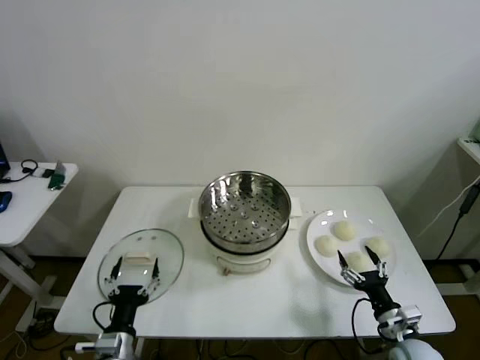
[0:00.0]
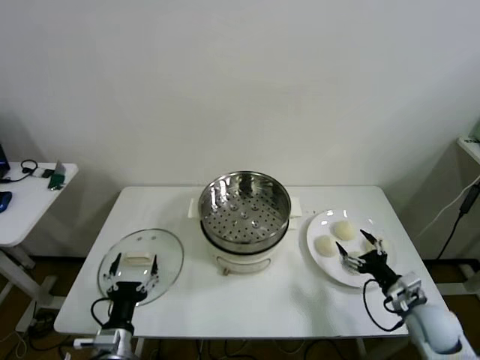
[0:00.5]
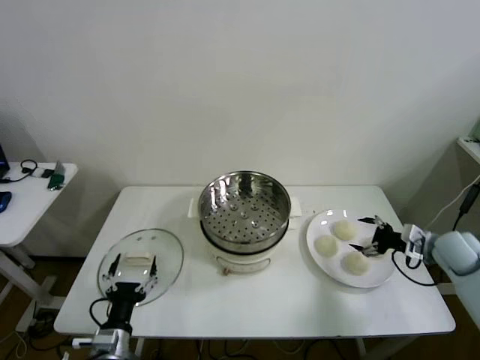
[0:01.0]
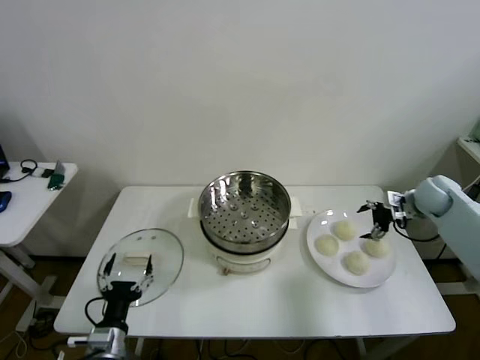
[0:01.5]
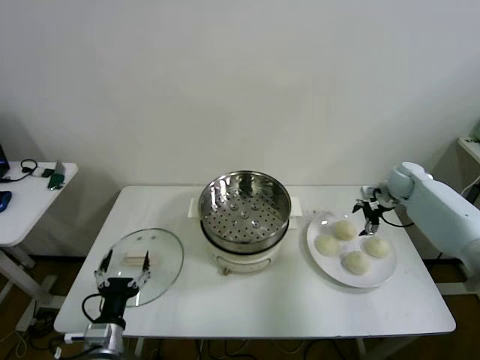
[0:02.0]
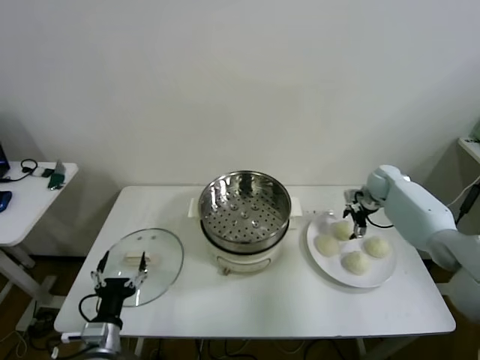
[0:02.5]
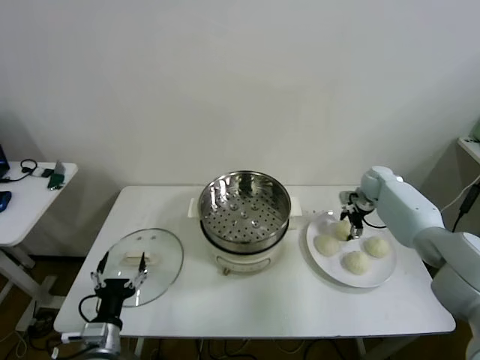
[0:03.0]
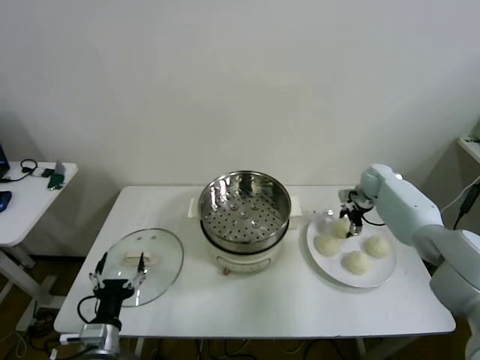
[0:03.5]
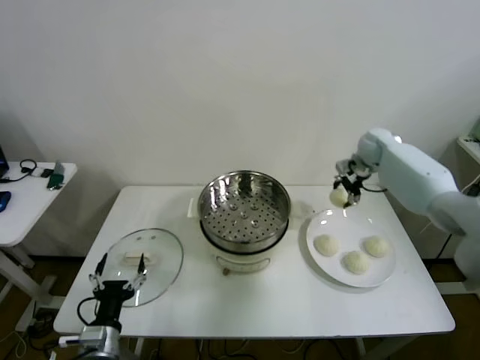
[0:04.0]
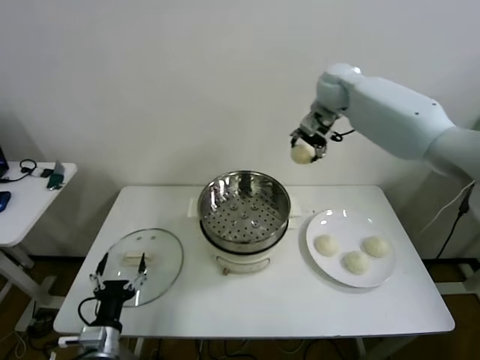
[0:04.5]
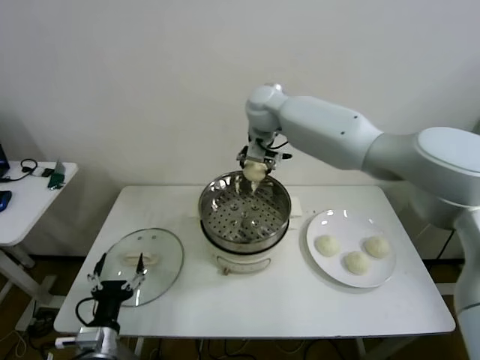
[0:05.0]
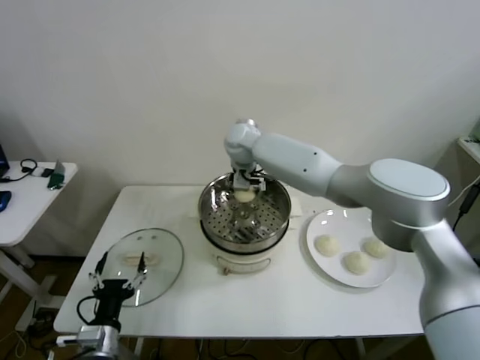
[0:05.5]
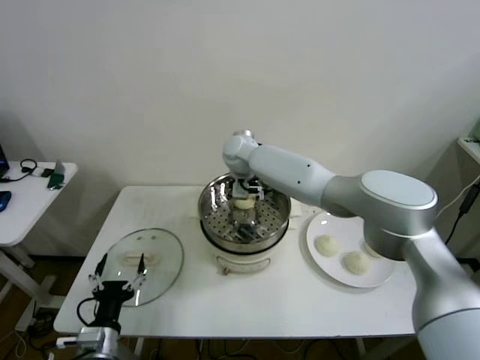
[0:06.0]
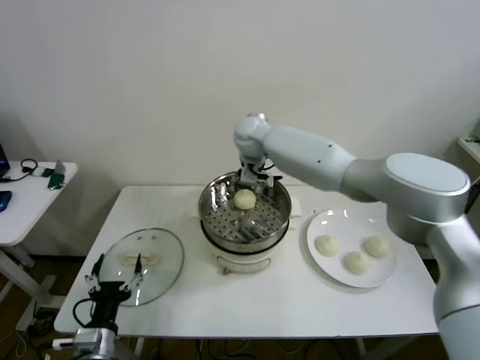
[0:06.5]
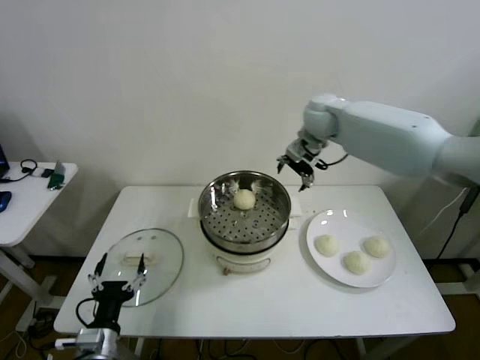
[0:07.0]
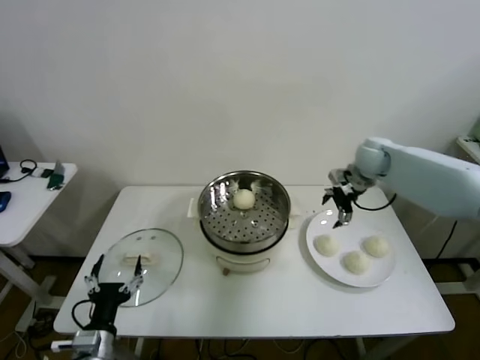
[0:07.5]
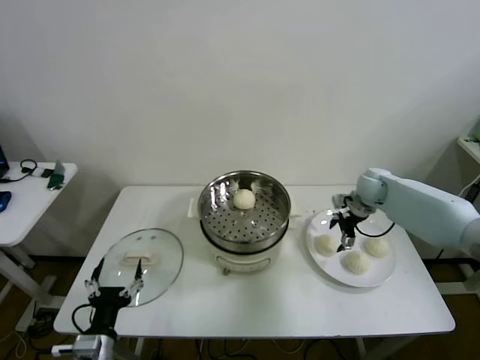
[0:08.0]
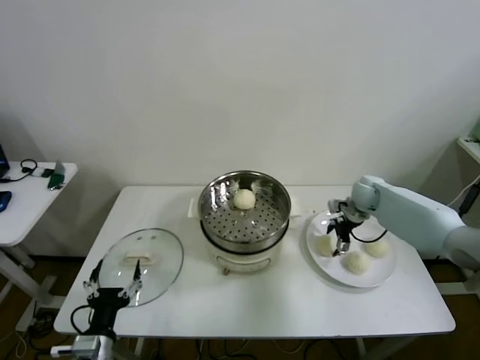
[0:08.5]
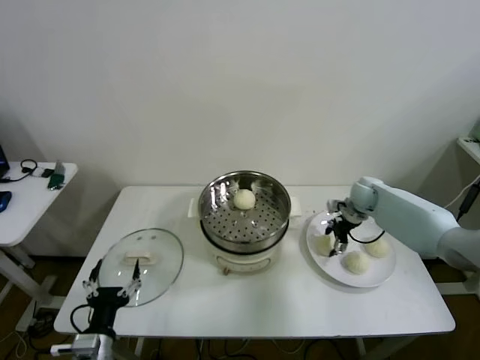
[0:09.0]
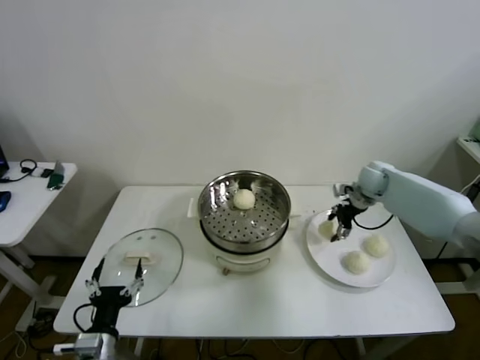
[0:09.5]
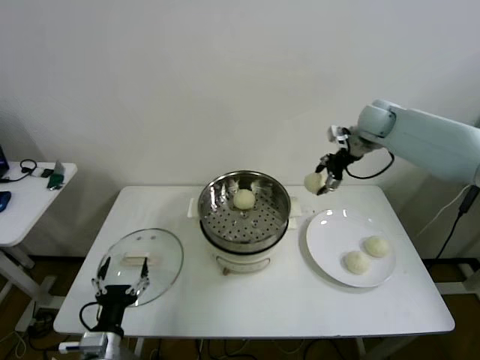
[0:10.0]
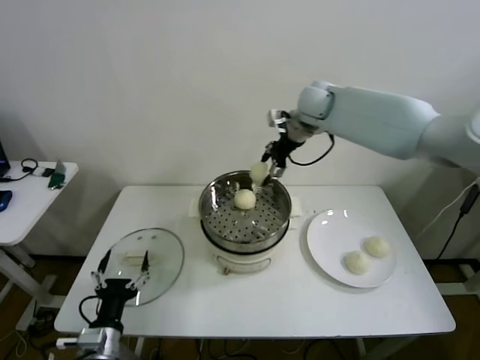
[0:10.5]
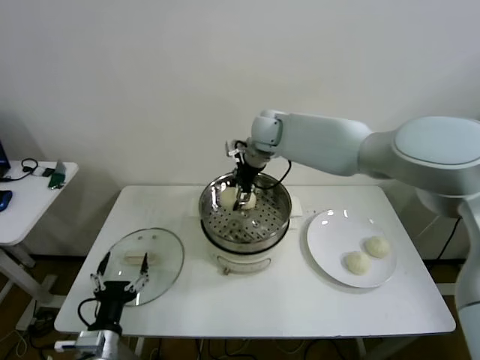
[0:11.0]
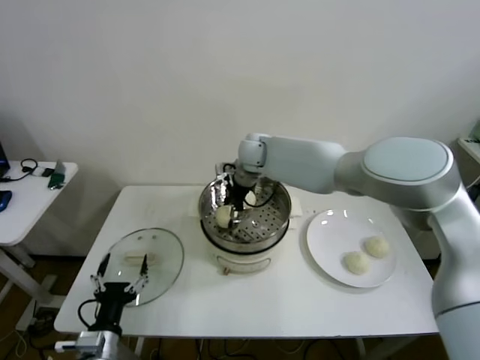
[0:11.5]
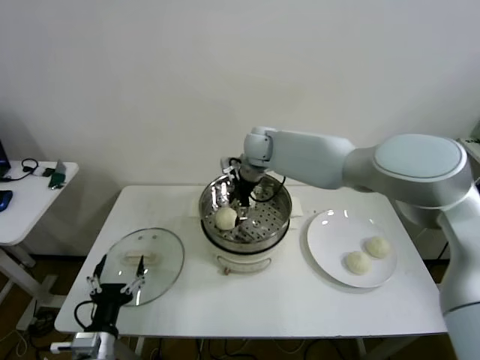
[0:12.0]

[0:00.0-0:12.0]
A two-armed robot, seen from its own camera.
Step, 0:00.0 to 0:03.0: Grasp the baozi in the plate with right gripper.
Step, 0:03.5 to 0:06.0: Place the baozi on the steamer with right gripper.
Step, 0:06.5 to 0:09.0: Grasp the baozi in the plate with right gripper.
Step, 0:09.5 to 0:11.5: Place the baozi on the steamer with right gripper.
0:02.0 to 0:04.0: The right gripper goes some 15 cm upward, to the left and forward.
0:04.0 to 0:06.0: The right gripper heads to the left, covering about 35 cm.
0:06.0 to 0:08.0: The right gripper shifts some 35 cm to the right.
0:08.0 to 0:10.0: The right gripper shifts roughly 20 cm upward.
0:10.0 to 0:12.0: The right gripper heads to the left, covering approximately 25 cm.

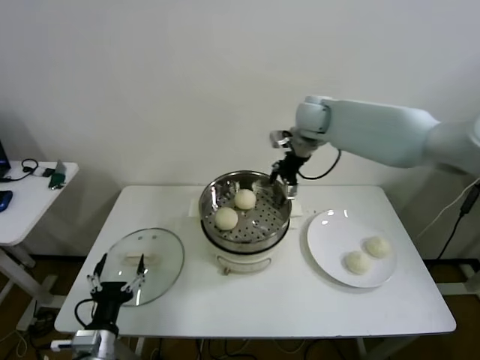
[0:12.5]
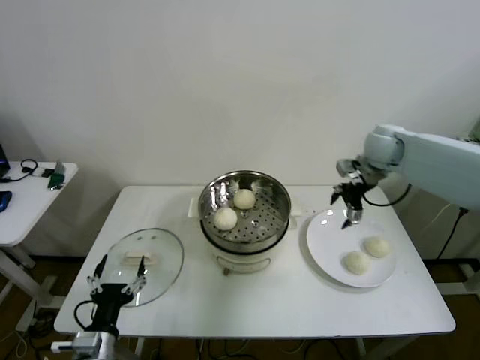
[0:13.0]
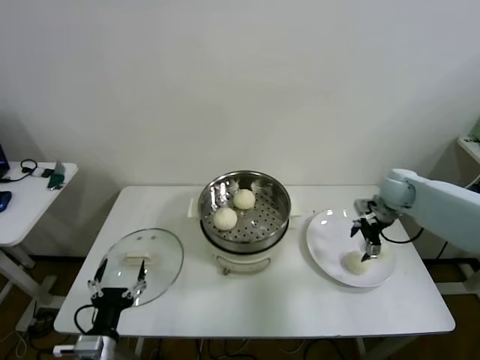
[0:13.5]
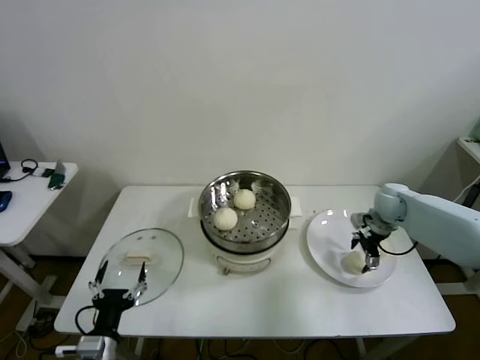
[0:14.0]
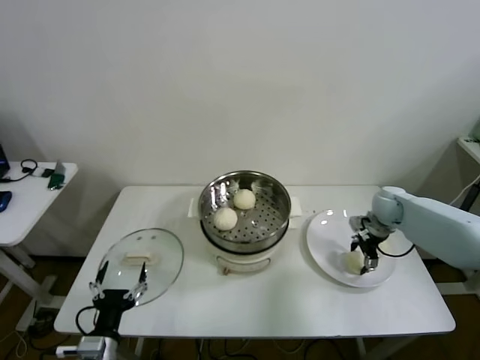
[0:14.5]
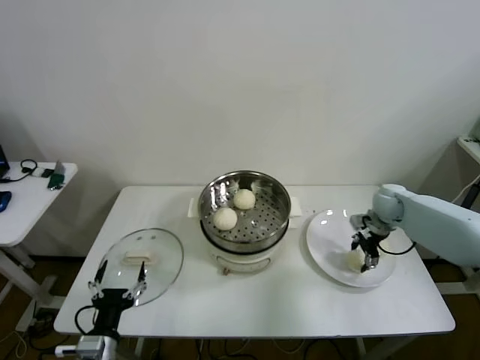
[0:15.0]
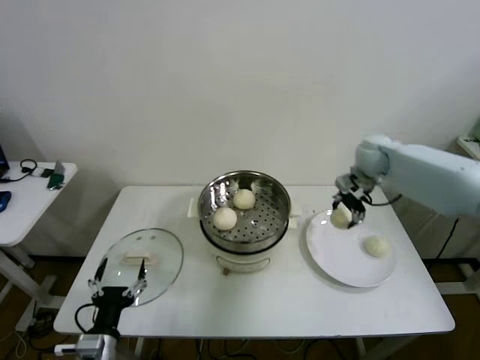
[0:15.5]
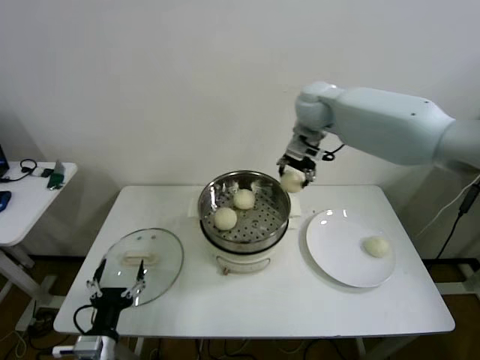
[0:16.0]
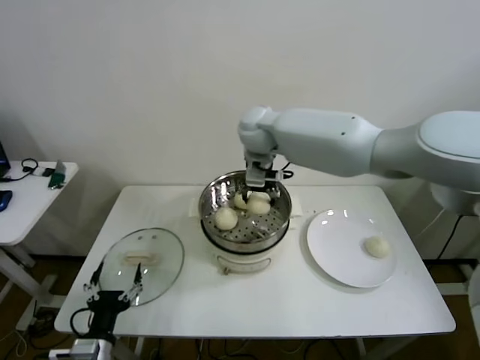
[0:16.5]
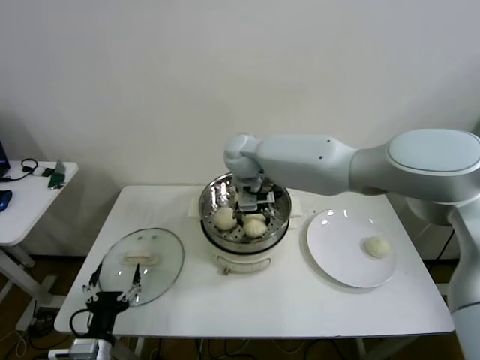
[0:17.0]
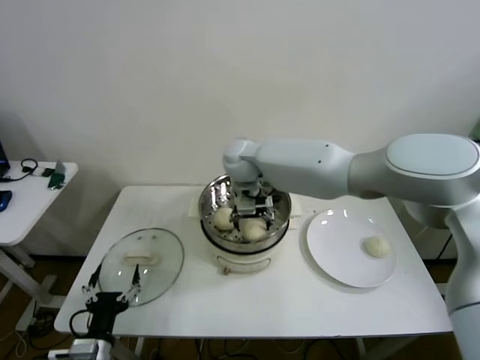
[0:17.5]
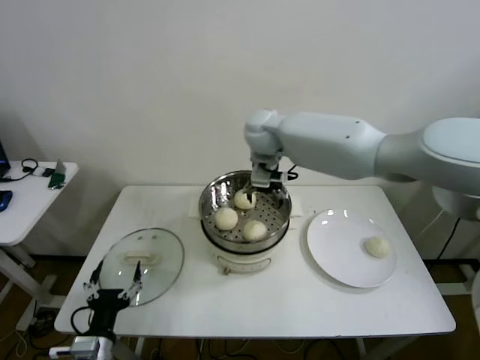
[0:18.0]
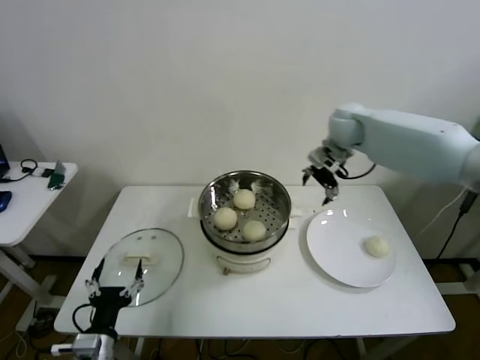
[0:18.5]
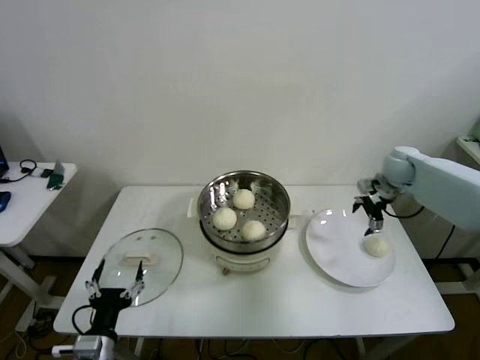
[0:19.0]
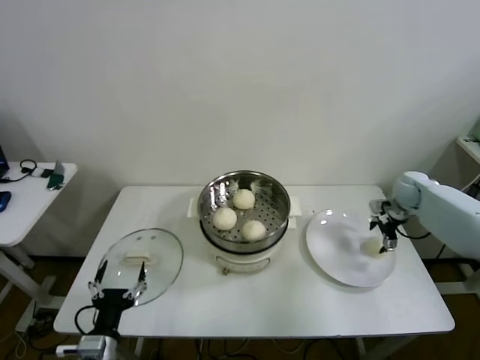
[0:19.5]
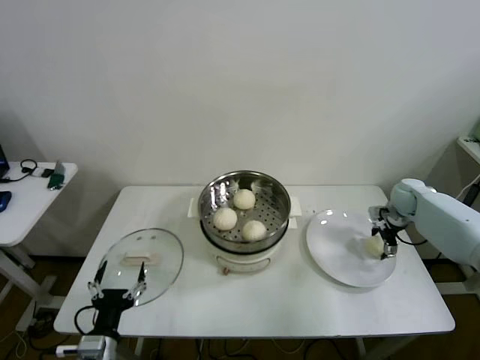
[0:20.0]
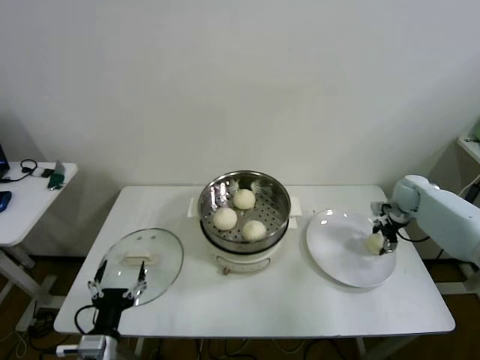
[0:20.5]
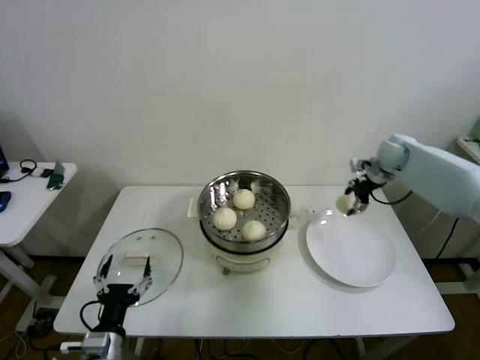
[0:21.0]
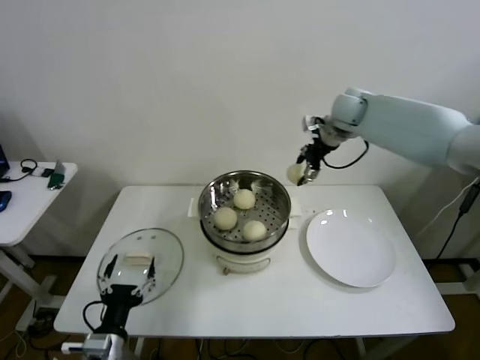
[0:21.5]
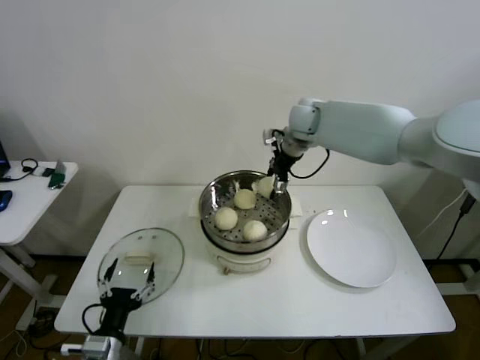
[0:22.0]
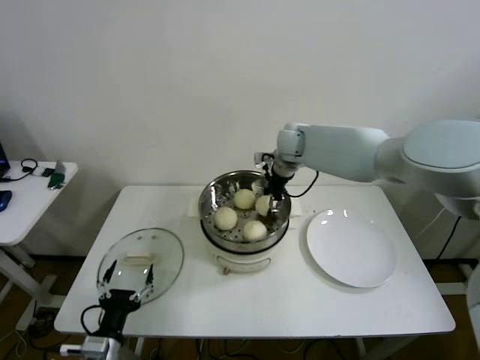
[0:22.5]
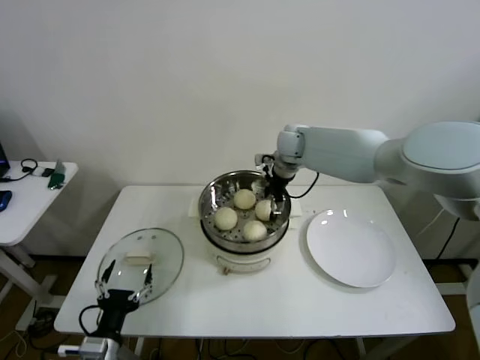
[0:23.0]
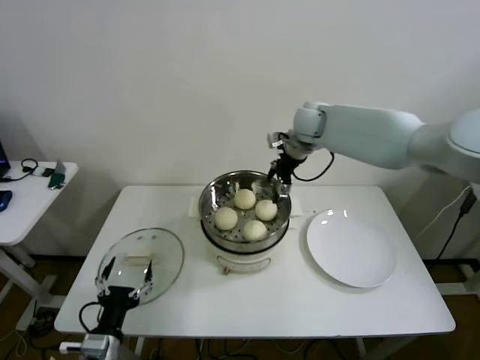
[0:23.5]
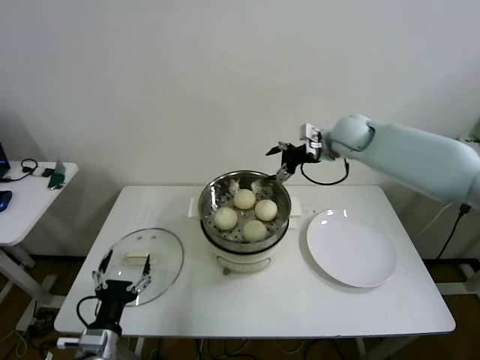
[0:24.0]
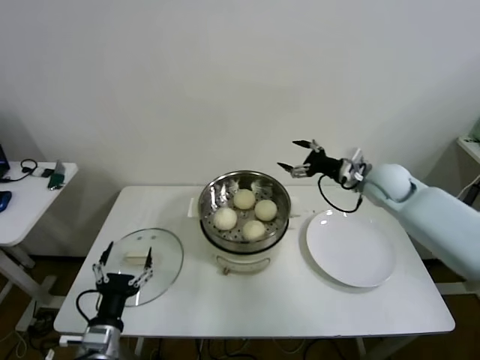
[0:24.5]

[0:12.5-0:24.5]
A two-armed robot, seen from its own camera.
Step, 0:12.5 to 0:14.5: Grasp the baozi in the plate with right gripper.
Step, 0:15.0 to 0:17.0: Place the baozi on the steamer with right gripper.
Step, 0:17.5 to 0:20.0: Grasp the baozi in the plate with right gripper.
Step, 0:20.5 to 0:22.5: Place the baozi on the steamer with right gripper.
0:12.5 to 0:14.5: The right gripper travels downward and to the right by some 30 cm.
0:14.5 to 0:16.5: The right gripper moves to the left and upward, approximately 40 cm.
0:16.5 to 0:18.5: The right gripper goes about 20 cm to the right.
0:18.5 to 0:20.5: The right gripper goes approximately 30 cm to the right and downward.
0:20.5 to 0:22.5: The right gripper travels to the left and upward by approximately 35 cm.
0:22.5 to 0:24.5: The right gripper shifts roughly 25 cm to the right and backward.

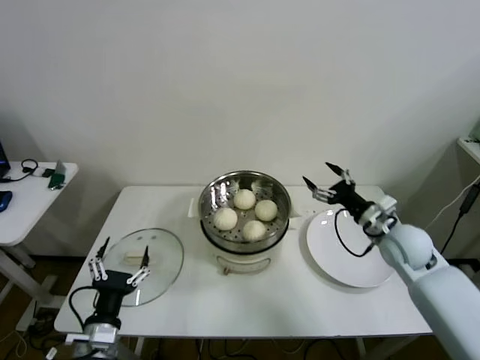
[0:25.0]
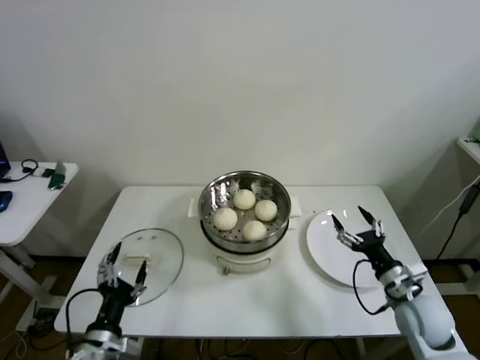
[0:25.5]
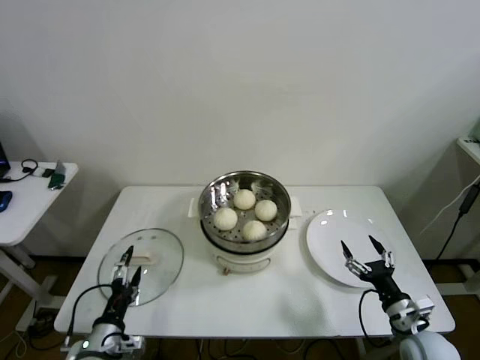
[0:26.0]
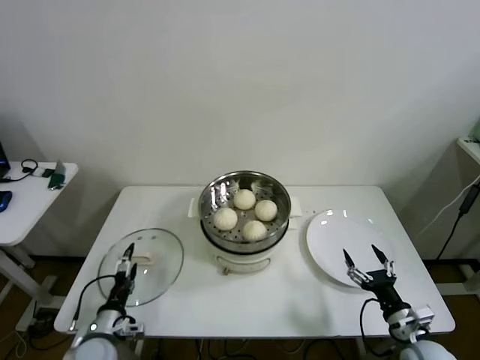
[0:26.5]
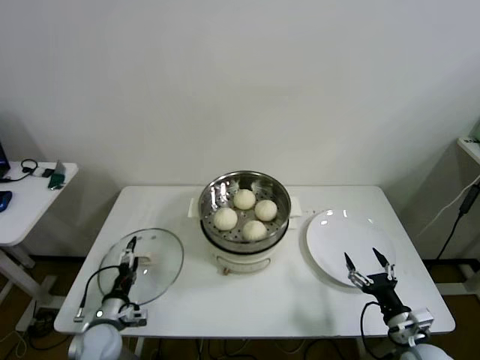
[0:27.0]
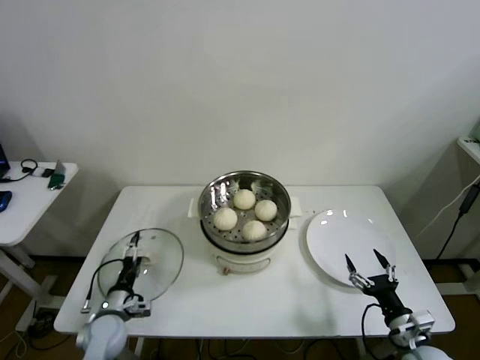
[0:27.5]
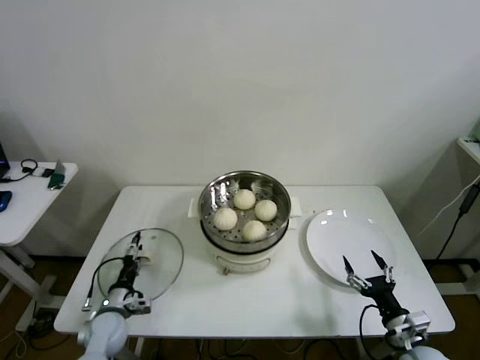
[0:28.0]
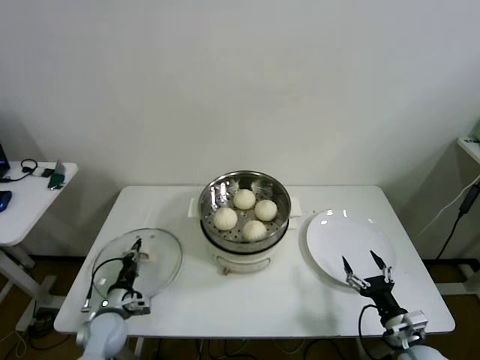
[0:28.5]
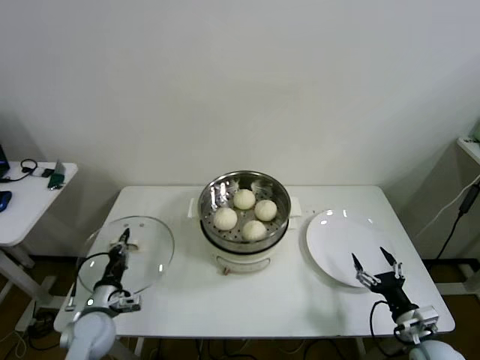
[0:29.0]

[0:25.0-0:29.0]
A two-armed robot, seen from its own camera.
Step, 0:25.0 to 0:28.5: Grasp the pot lid with left gripper.
0:25.0 to 0:27.0: The right gripper goes about 25 cm backward and downward; the left gripper goes approximately 15 cm downward, forward and to the left.
0:27.0 to 0:29.0: The left gripper closes up.
